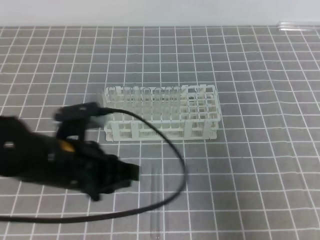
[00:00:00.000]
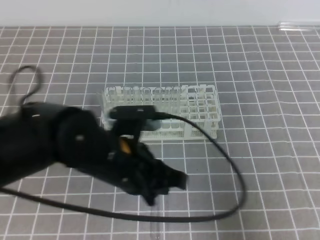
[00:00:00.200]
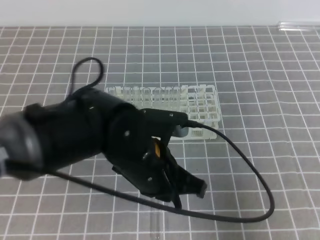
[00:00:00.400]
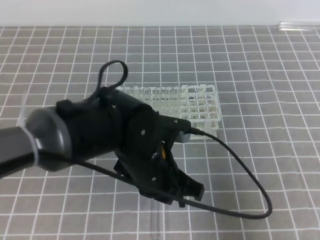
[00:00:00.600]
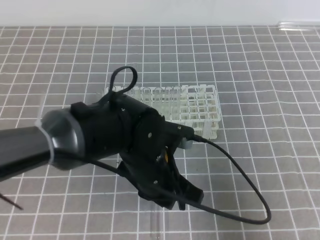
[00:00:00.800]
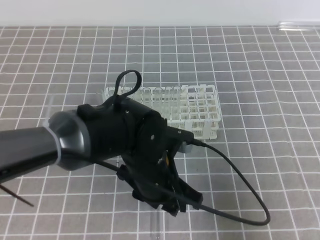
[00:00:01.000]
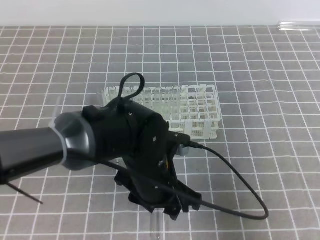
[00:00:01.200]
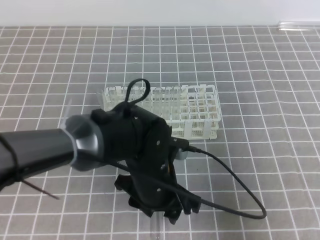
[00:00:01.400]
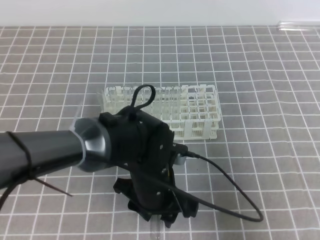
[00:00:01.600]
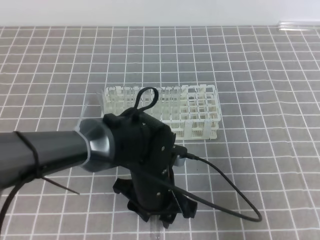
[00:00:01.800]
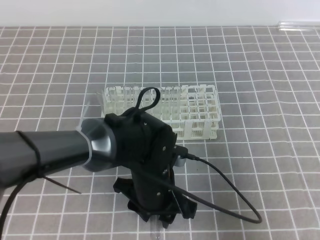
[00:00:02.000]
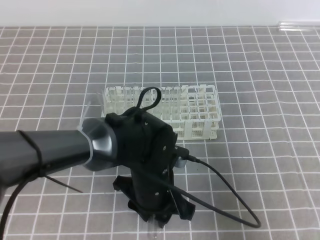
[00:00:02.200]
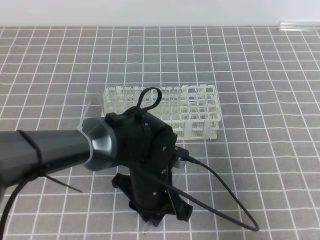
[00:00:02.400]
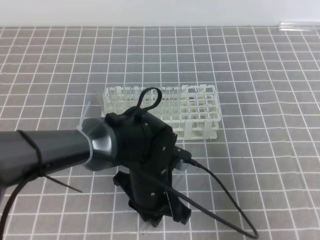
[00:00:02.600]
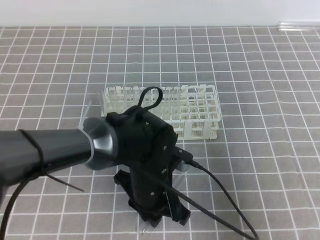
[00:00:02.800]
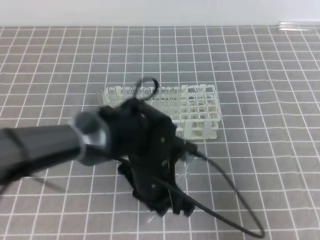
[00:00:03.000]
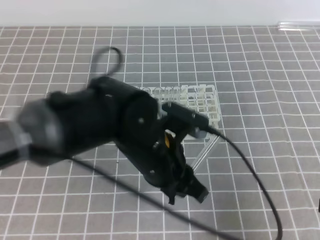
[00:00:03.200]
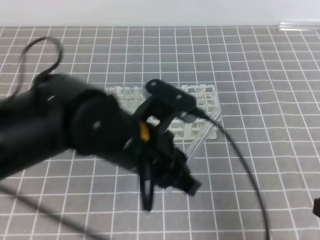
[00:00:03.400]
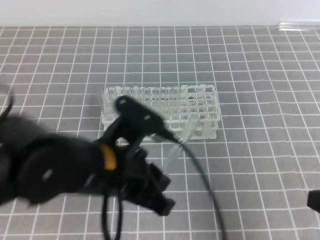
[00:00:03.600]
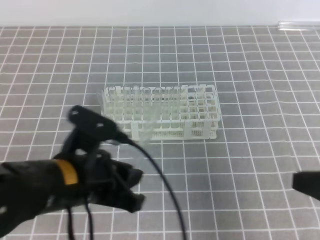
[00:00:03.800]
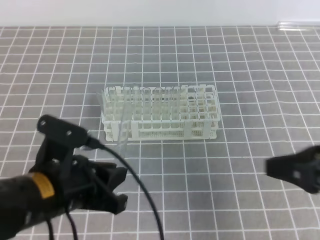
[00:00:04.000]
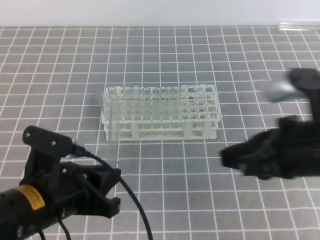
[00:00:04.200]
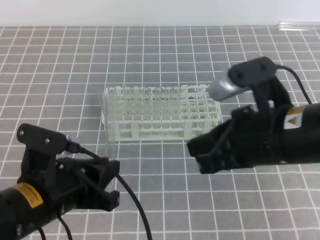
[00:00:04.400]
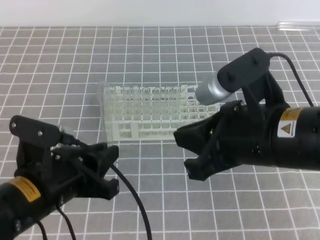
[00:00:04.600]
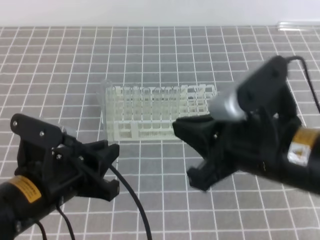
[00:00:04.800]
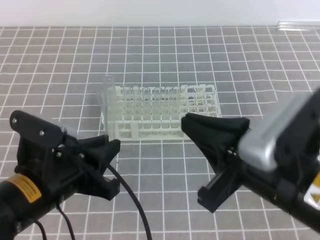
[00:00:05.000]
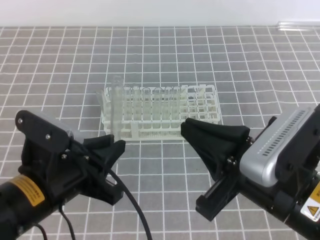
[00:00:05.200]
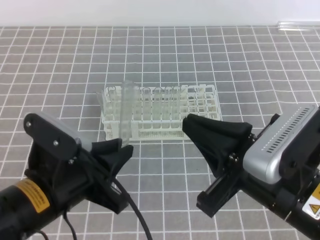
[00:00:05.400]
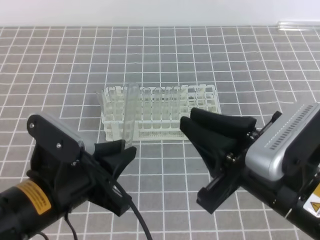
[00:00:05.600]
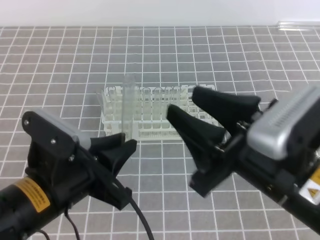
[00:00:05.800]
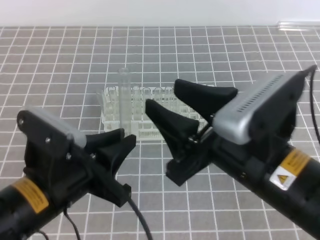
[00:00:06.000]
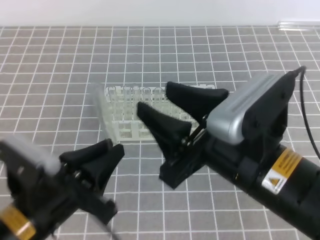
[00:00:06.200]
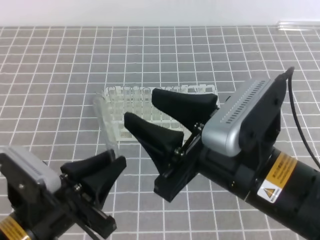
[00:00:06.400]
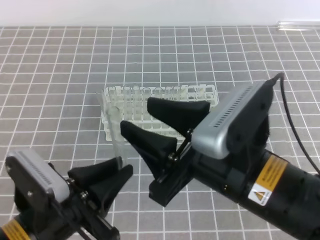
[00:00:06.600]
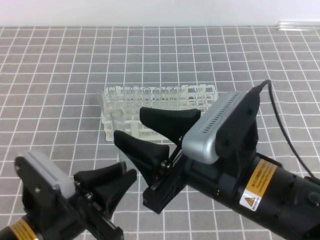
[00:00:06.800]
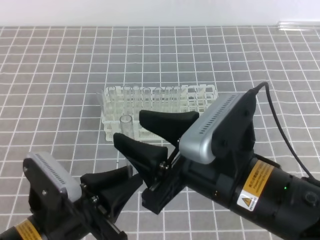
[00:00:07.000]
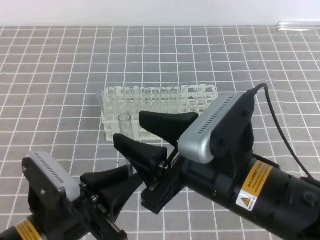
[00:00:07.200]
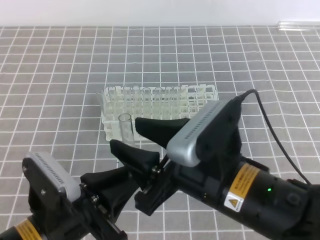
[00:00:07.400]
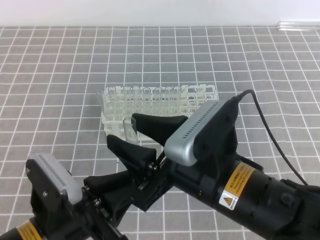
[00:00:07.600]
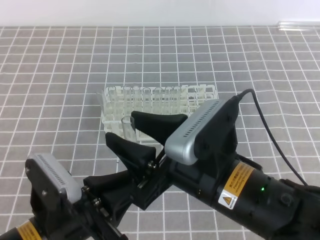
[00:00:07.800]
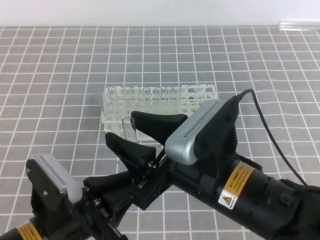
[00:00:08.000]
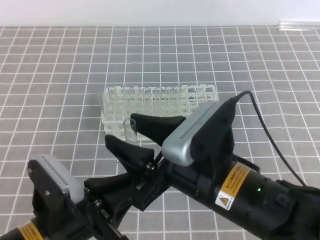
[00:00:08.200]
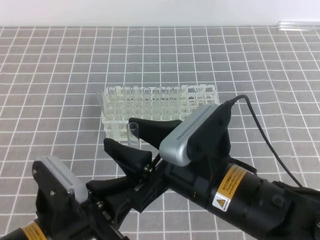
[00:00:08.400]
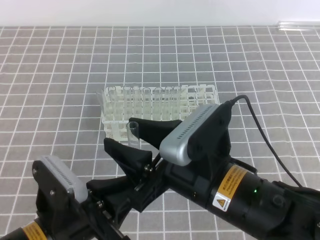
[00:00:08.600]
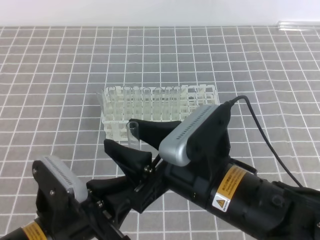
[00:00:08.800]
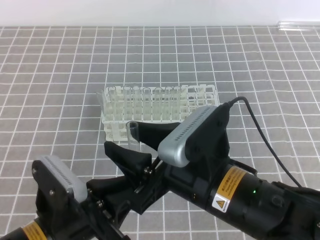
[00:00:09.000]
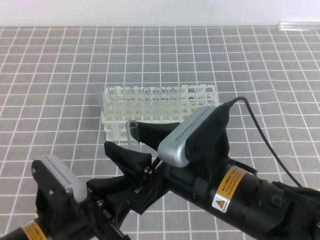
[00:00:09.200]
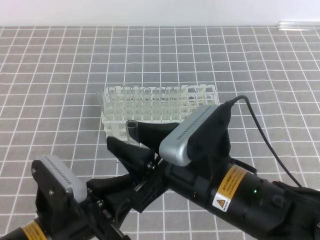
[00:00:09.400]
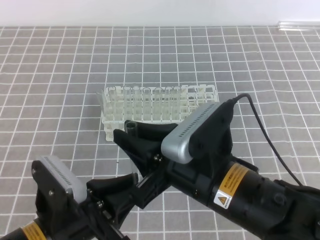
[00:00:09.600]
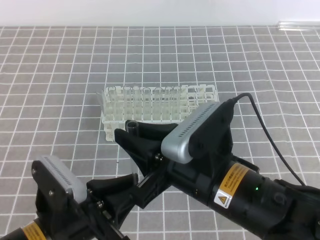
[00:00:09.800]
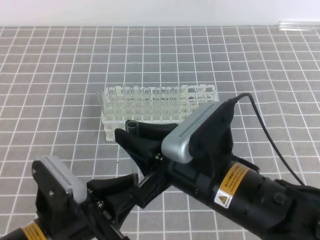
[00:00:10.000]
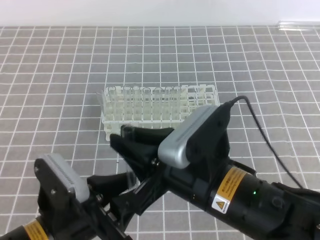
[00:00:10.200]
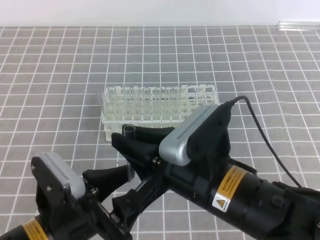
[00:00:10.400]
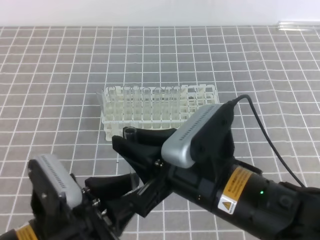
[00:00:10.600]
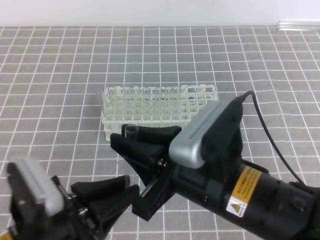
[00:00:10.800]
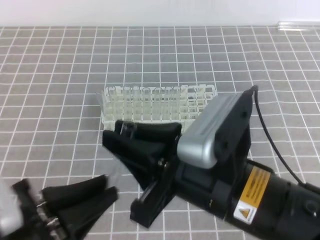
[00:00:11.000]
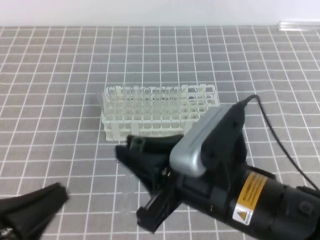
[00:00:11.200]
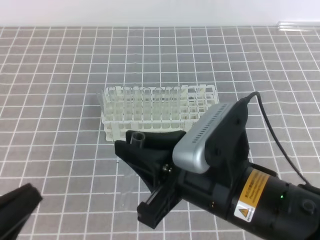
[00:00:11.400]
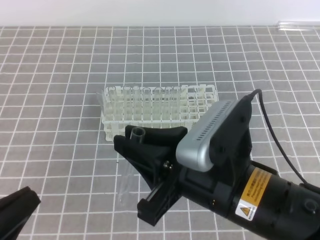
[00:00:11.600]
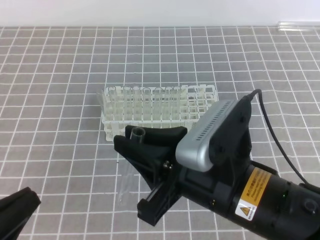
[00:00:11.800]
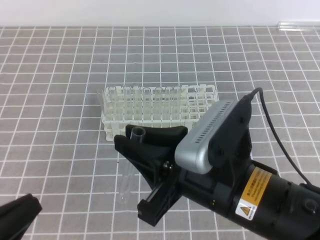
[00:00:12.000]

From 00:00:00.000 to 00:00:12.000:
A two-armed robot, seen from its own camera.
From 00:00:00.000 to 00:00:01.600: The left gripper heads to the right and downward, covering roughly 10 cm, and opens up.
From 00:00:01.600 to 00:00:03.000: The left gripper closes.
From 00:00:03.000 to 00:00:04.400: The left gripper heads to the left and backward, covering approximately 15 cm, while the right gripper heads to the left, forward and upward, covering about 15 cm.
From 00:00:04.400 to 00:00:06.000: The right gripper ends up roughly 5 cm from where it was, and opens.
From 00:00:06.000 to 00:00:07.600: The right gripper moves roughly 5 cm.
From 00:00:07.600 to 00:00:09.000: Neither gripper changes place.
From 00:00:09.000 to 00:00:10.400: The left gripper opens up, while the right gripper closes its fingers.
From 00:00:10.400 to 00:00:12.000: The left gripper heads to the left and backward, covering approximately 15 cm, and closes up.

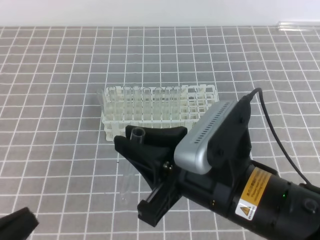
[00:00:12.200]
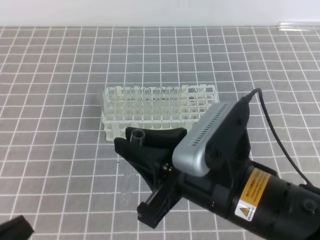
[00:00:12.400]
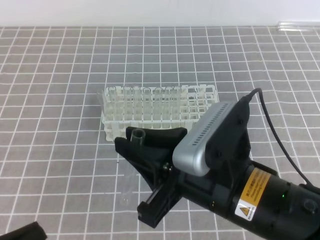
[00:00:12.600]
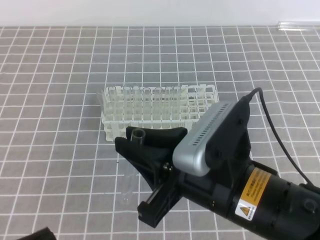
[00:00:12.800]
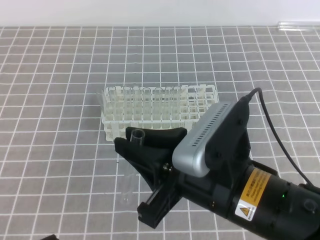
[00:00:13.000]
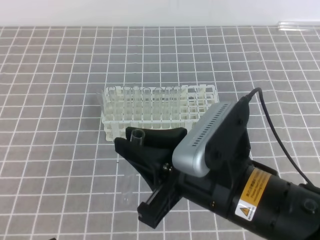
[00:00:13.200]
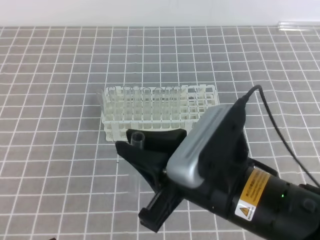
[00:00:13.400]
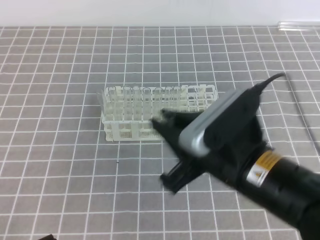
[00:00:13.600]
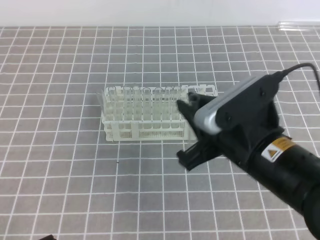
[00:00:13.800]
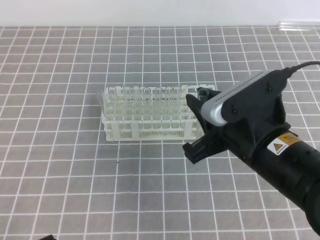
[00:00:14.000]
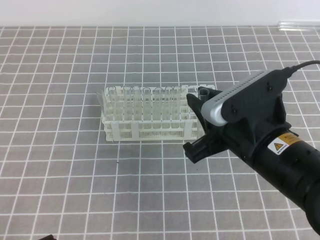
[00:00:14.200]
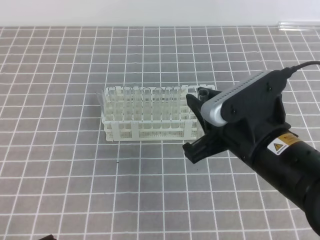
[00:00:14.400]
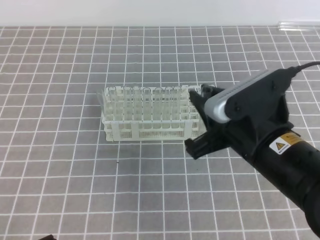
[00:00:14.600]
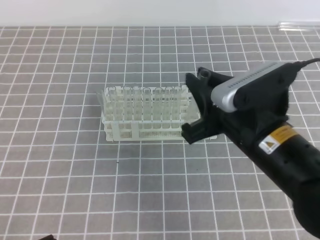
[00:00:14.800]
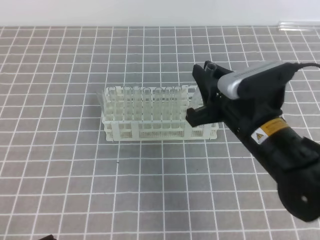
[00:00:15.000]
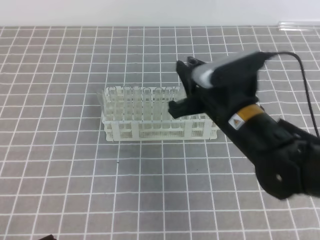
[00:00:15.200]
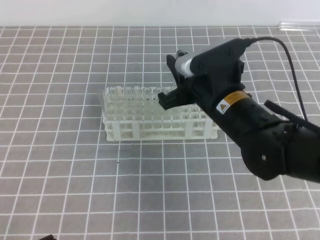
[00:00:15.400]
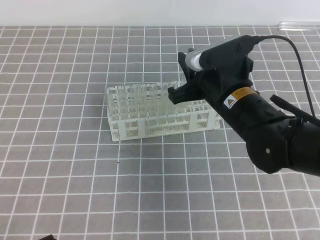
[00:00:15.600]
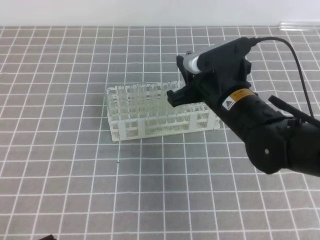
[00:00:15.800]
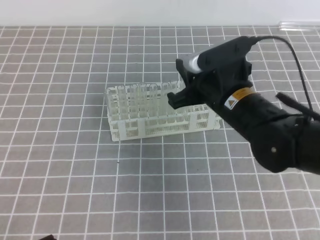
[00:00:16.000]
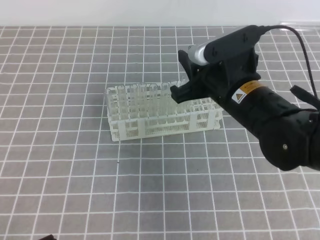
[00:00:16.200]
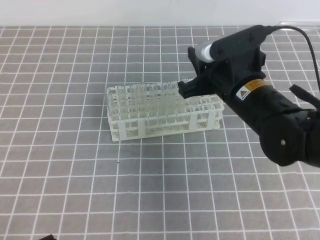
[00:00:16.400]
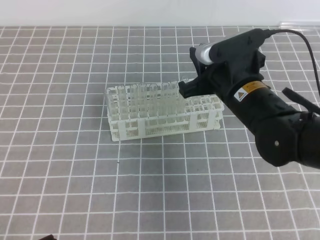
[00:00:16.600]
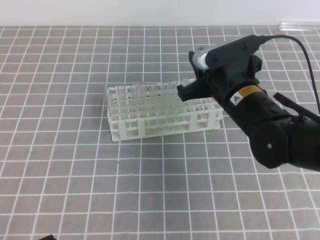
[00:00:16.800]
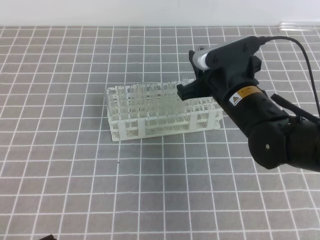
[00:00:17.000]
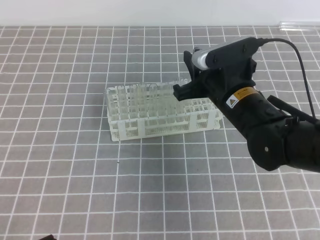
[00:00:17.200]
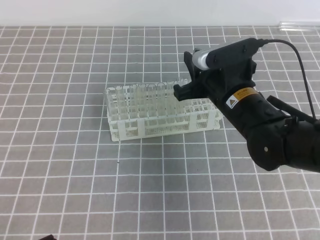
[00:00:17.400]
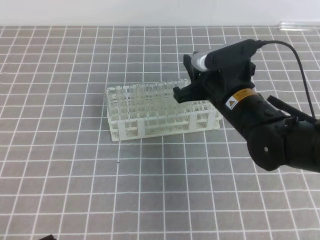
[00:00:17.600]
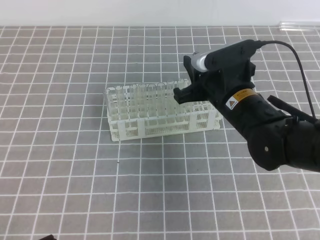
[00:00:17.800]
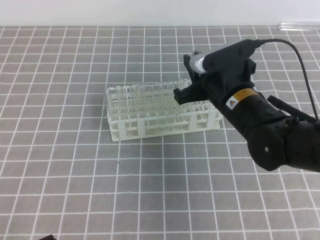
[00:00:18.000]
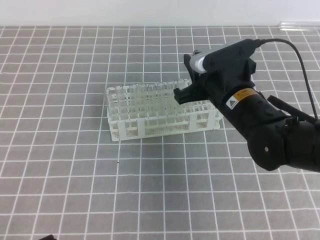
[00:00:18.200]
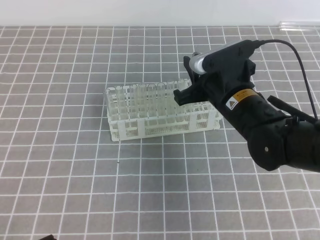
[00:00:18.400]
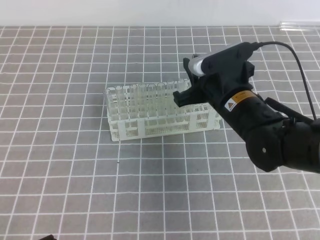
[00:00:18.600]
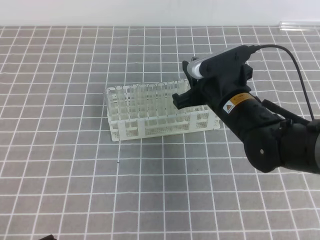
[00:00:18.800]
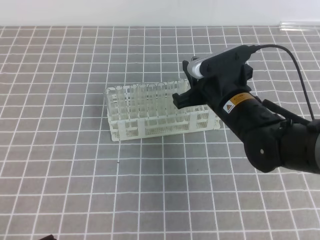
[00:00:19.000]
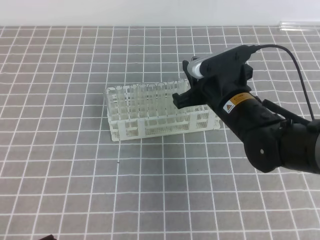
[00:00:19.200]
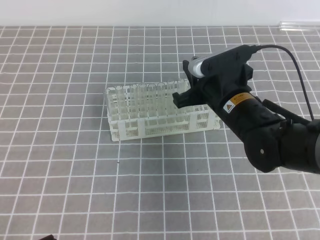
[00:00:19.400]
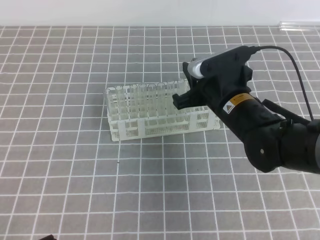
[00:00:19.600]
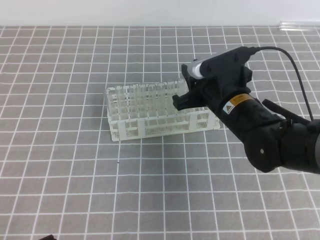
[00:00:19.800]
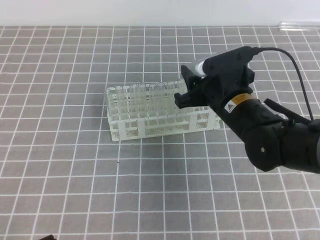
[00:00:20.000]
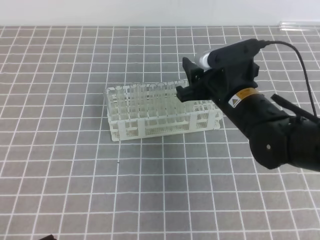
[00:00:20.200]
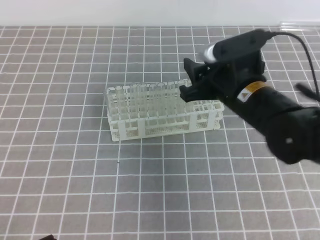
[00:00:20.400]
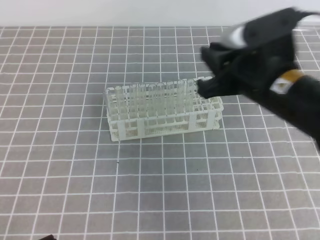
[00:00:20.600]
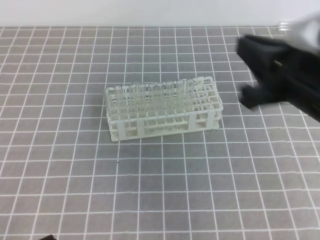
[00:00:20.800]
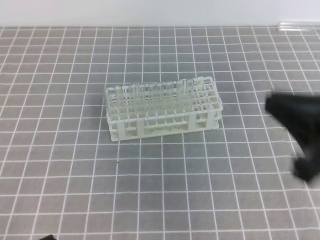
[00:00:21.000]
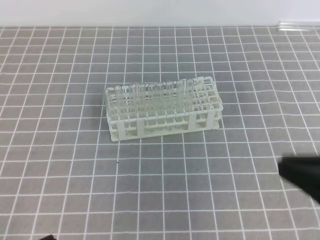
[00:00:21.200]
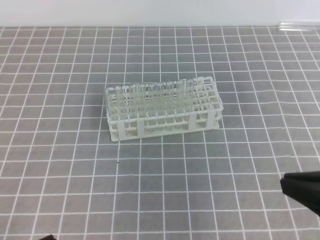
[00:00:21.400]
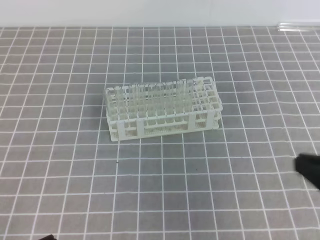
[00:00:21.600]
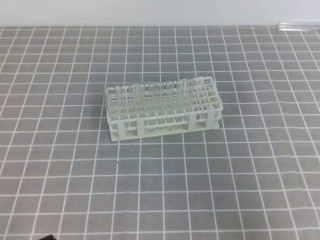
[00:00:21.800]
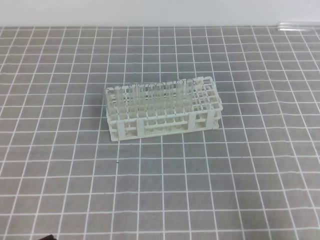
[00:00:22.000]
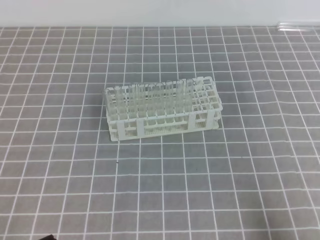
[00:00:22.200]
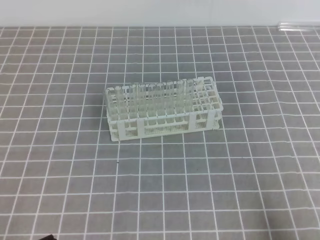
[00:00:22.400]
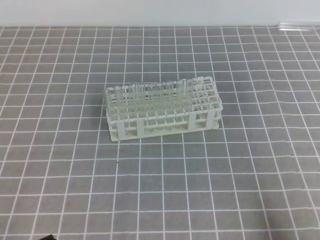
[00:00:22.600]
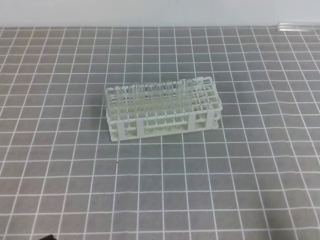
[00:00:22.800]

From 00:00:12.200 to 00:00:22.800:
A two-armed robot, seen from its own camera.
From 00:00:12.200 to 00:00:13.800: The right gripper changes place by about 5 cm; the left gripper travels downward by roughly 5 cm.
From 00:00:13.800 to 00:00:15.200: The right gripper shifts about 10 cm forward.
From 00:00:15.200 to 00:00:16.800: The right gripper ends up approximately 5 cm from where it was.
From 00:00:16.800 to 00:00:18.200: Both grippers stay about where they are.
From 00:00:18.200 to 00:00:19.800: The two grippers keep their place.
From 00:00:19.800 to 00:00:21.200: The right gripper is displaced backward, to the right and upward by approximately 25 cm, and closes.
From 00:00:21.200 to 00:00:22.800: The right gripper moves downward and to the right, roughly 20 cm.
